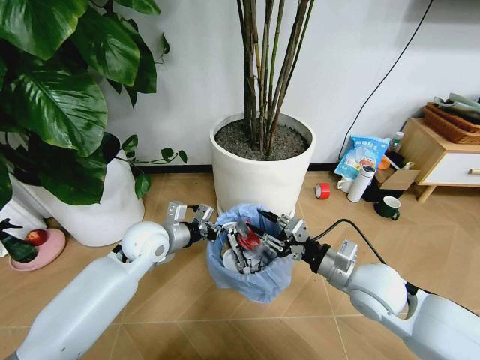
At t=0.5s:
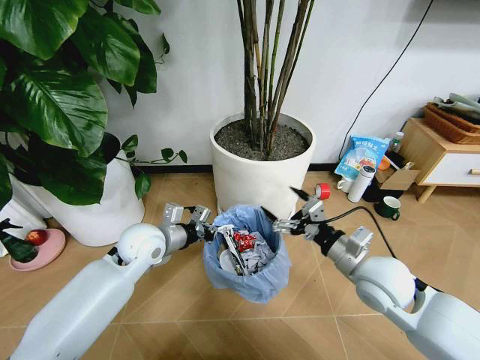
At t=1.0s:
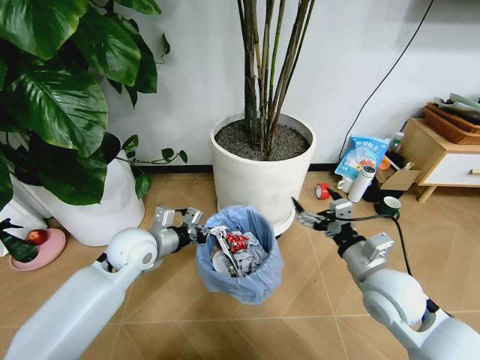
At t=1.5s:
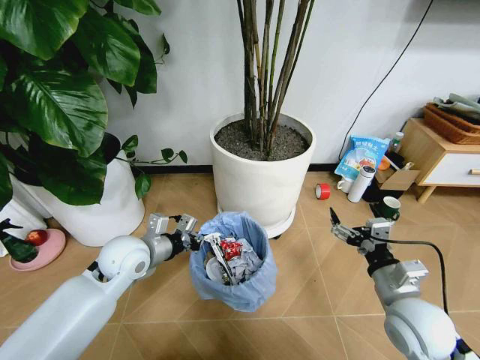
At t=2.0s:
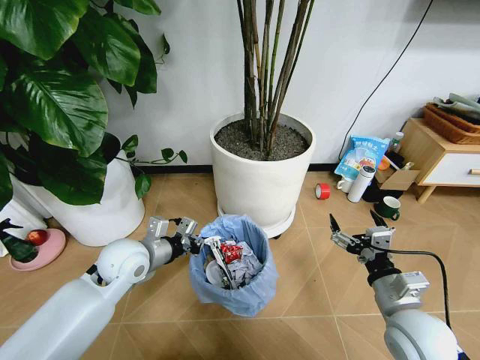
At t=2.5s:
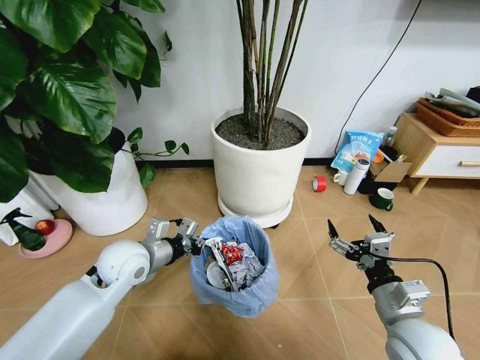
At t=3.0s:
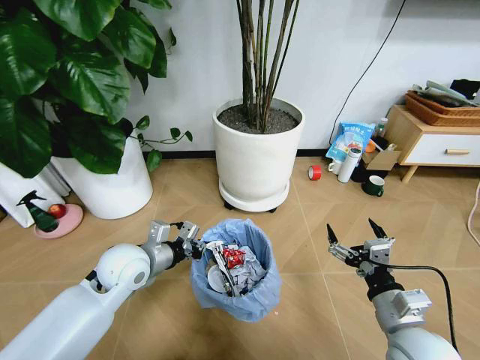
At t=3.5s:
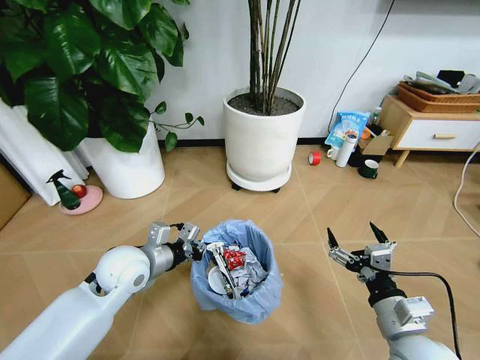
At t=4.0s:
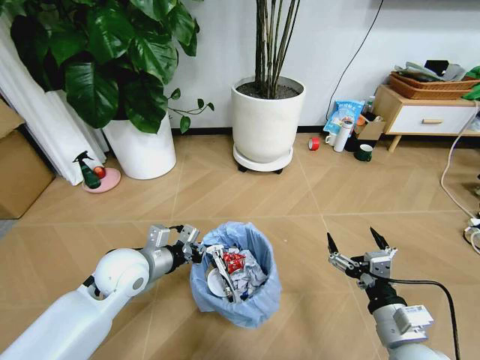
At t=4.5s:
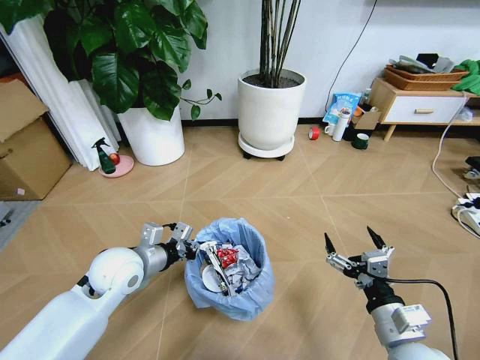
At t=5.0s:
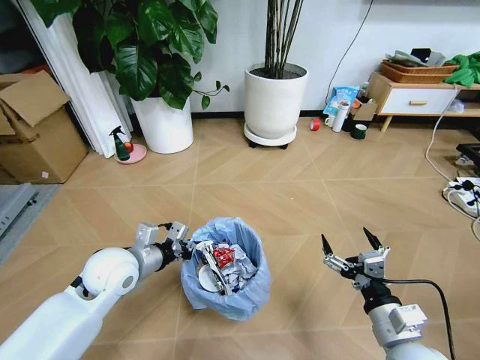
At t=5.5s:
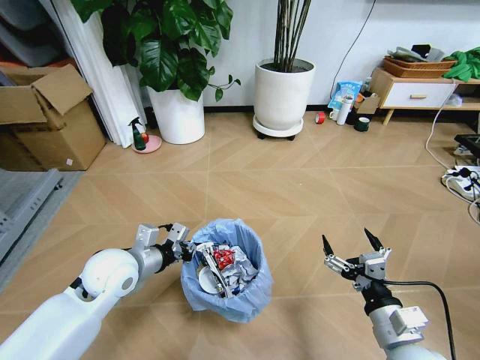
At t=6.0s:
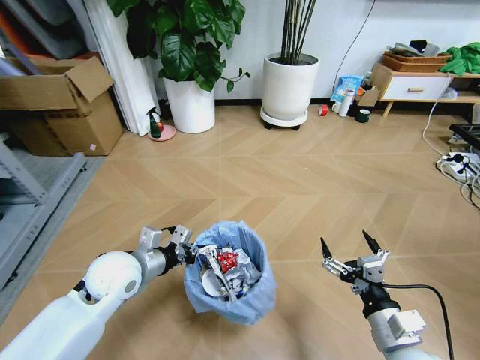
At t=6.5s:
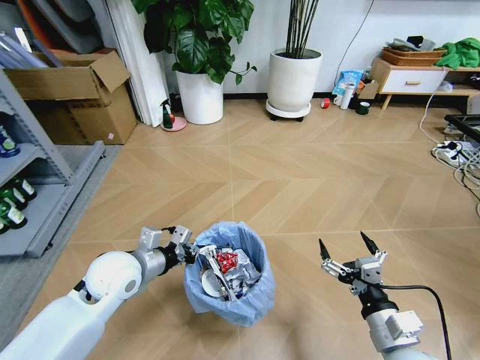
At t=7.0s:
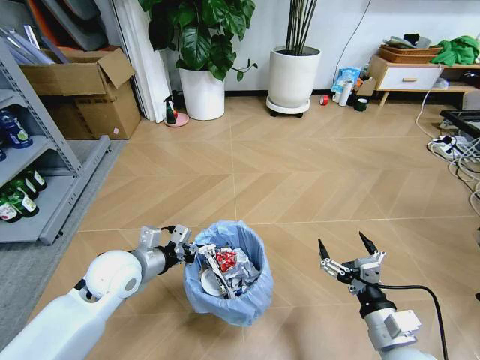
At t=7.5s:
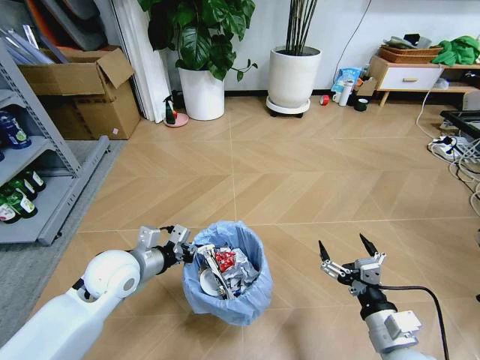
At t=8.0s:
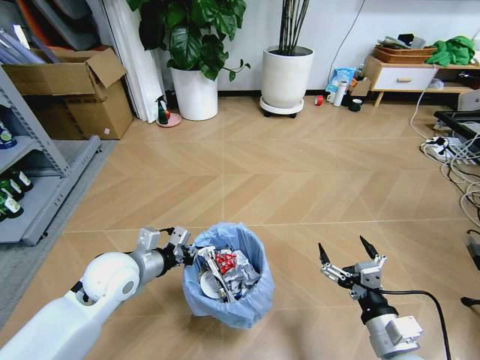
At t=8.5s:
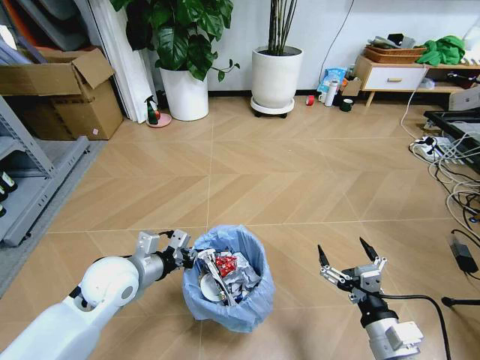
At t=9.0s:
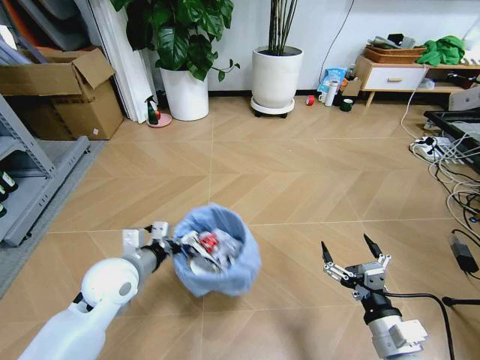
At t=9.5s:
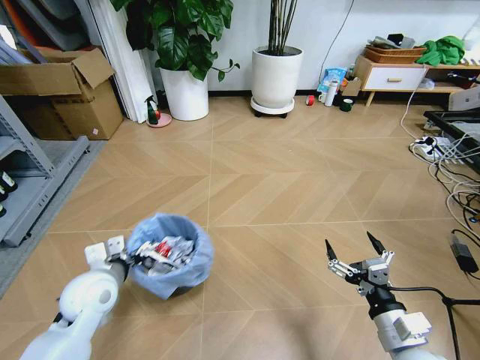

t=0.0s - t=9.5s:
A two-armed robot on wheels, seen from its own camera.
Task of the whole recording: Pick up the trash bin and place the garbage on the floor into it.
t=0.0s - t=2.0s: The left gripper changes place by about 5 cm. The right gripper goes some 10 cm backward, and opens up.
t=2.0s - t=4.0s: The right gripper moves backward, roughly 5 cm.

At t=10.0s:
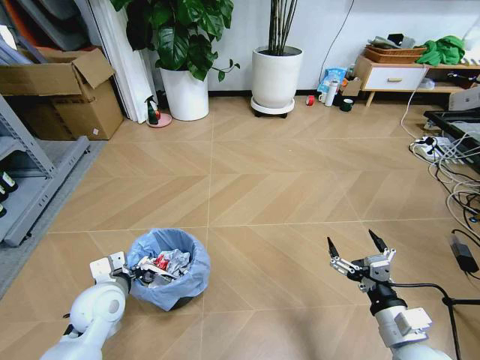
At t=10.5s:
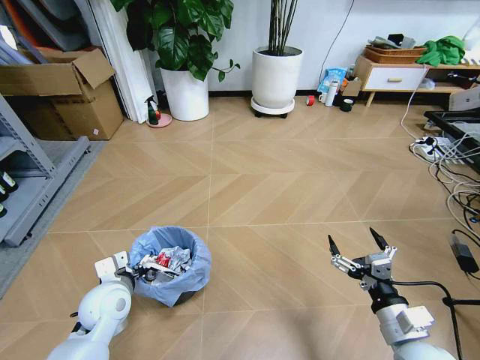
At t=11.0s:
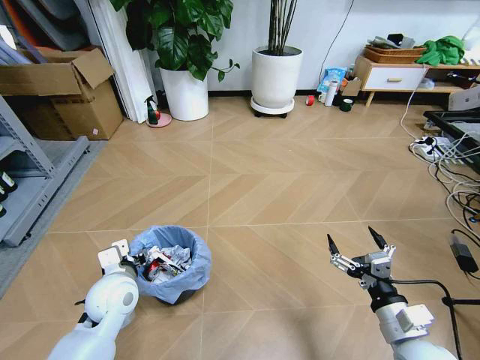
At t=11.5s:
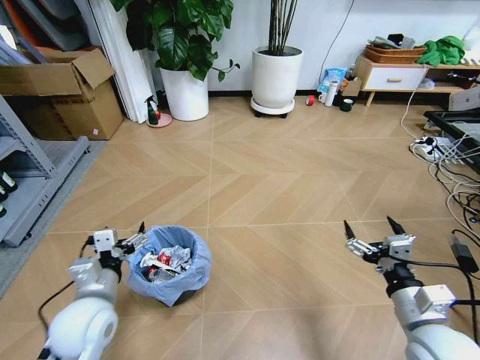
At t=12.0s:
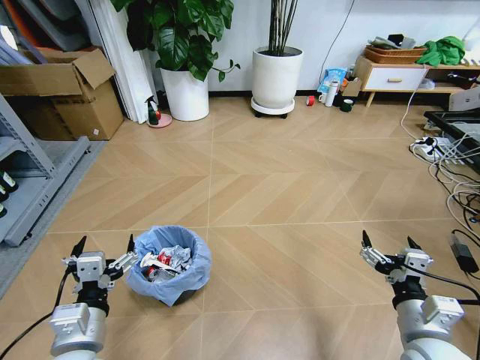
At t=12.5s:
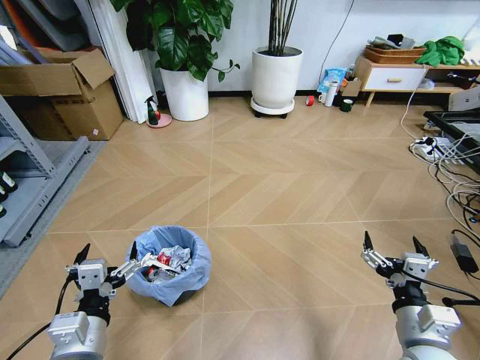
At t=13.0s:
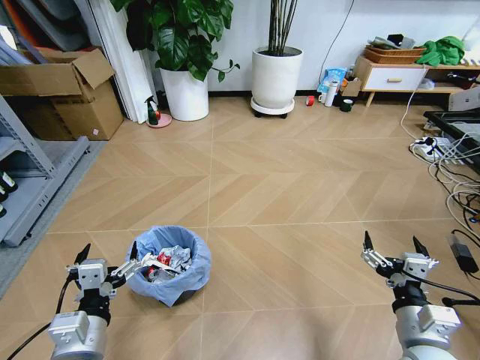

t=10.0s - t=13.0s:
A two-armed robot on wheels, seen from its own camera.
Task of the whole recording: Pick up the trash bin and place the garbage on the floor into it.
t=10.0s - t=11.5s: The left gripper ends up roughly 5 cm from where it was, and opens up.
t=11.5s - t=13.0s: The left gripper heads backward, covering some 10 cm.
